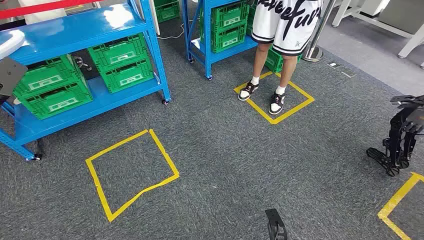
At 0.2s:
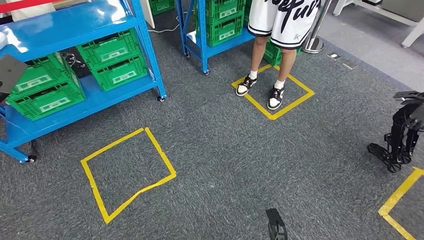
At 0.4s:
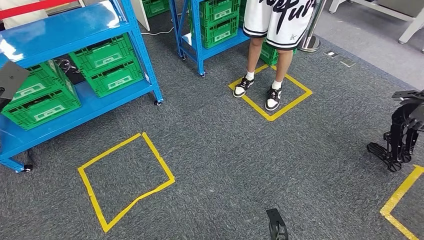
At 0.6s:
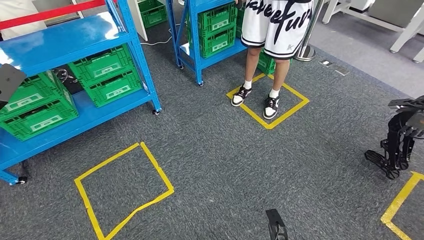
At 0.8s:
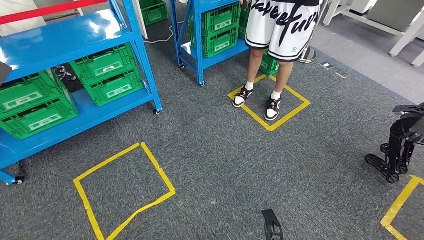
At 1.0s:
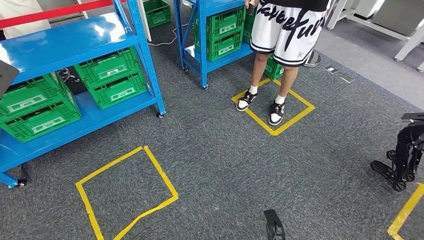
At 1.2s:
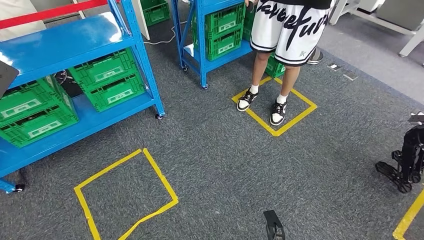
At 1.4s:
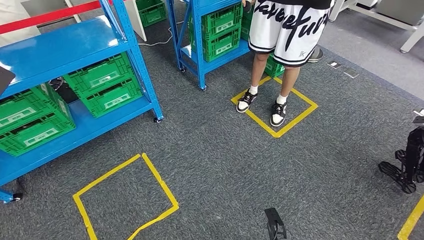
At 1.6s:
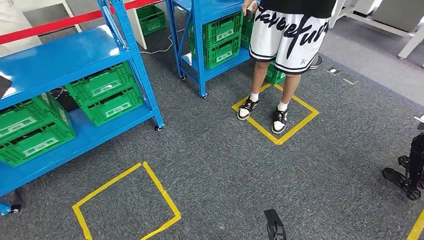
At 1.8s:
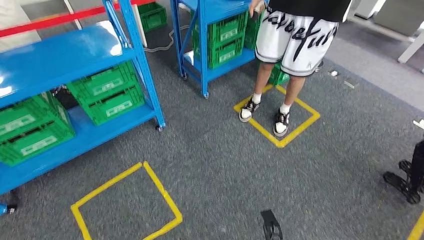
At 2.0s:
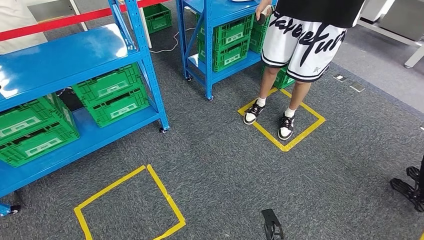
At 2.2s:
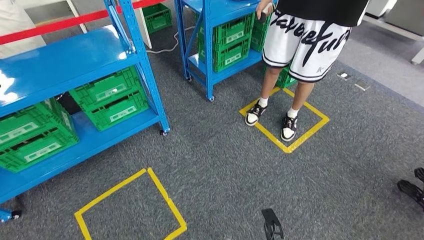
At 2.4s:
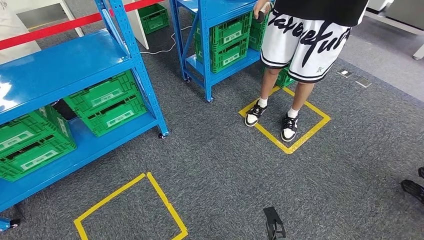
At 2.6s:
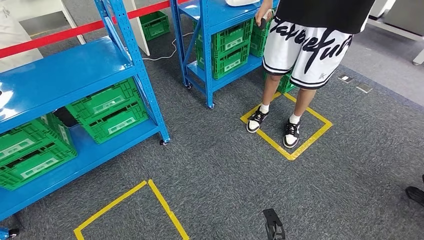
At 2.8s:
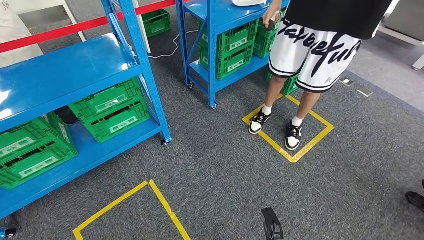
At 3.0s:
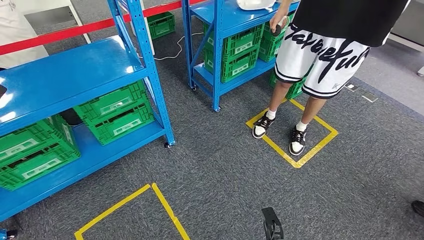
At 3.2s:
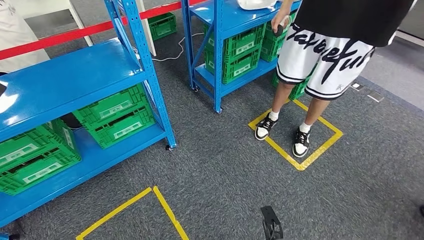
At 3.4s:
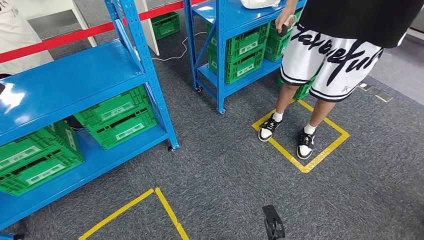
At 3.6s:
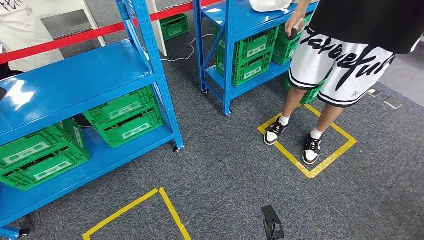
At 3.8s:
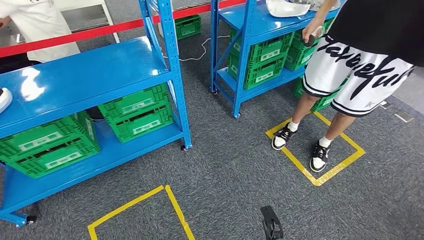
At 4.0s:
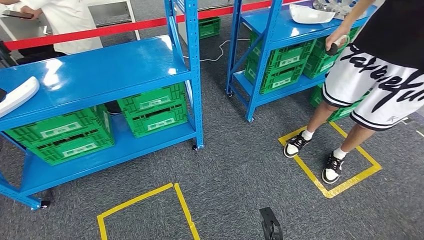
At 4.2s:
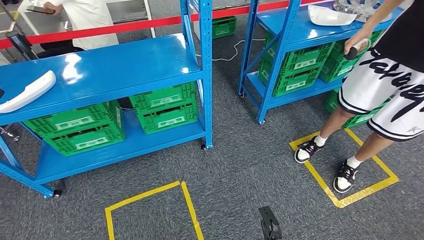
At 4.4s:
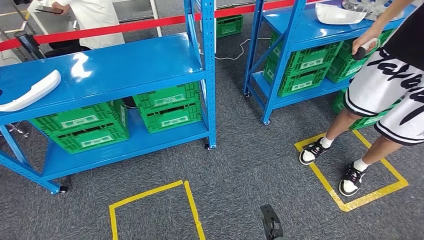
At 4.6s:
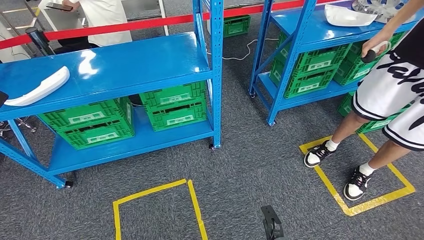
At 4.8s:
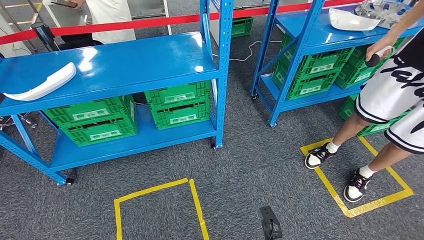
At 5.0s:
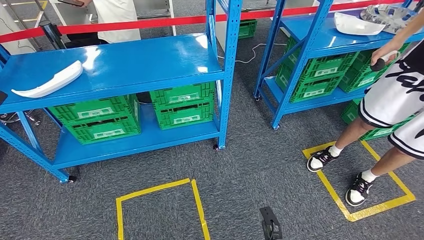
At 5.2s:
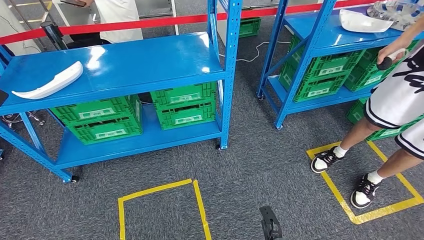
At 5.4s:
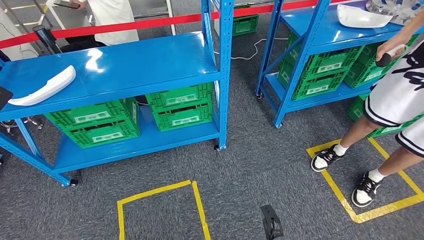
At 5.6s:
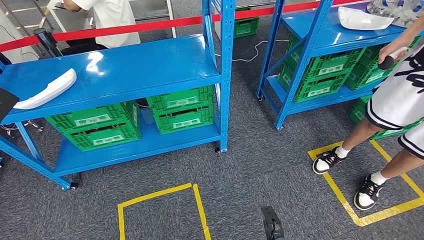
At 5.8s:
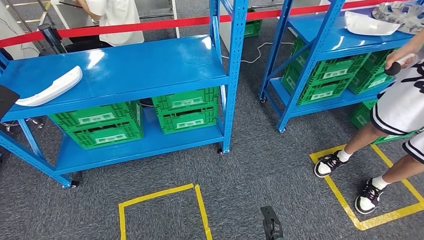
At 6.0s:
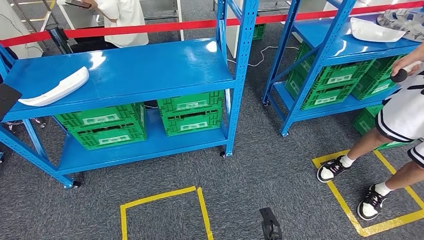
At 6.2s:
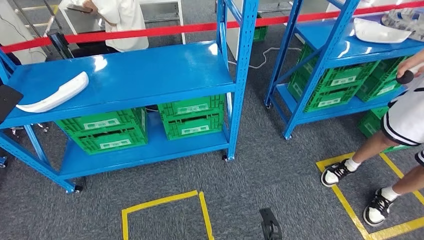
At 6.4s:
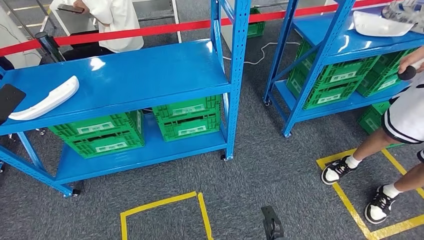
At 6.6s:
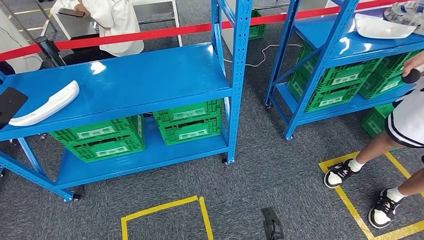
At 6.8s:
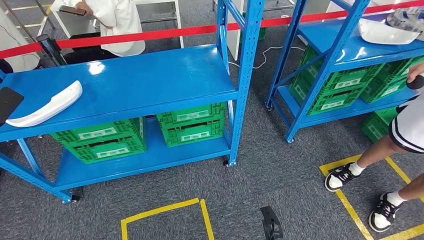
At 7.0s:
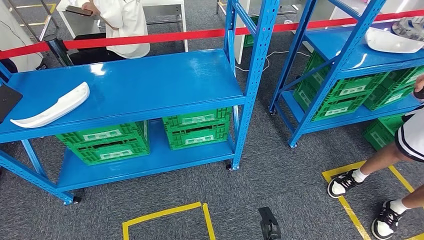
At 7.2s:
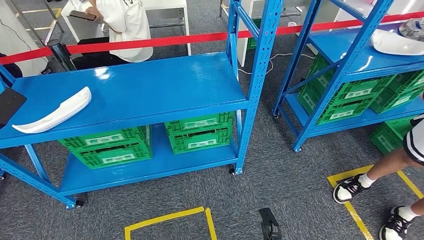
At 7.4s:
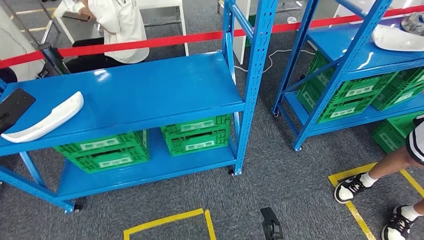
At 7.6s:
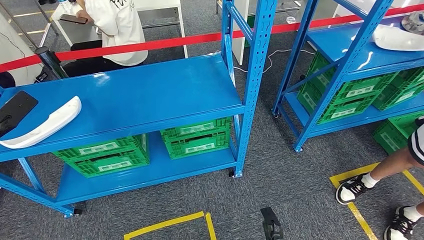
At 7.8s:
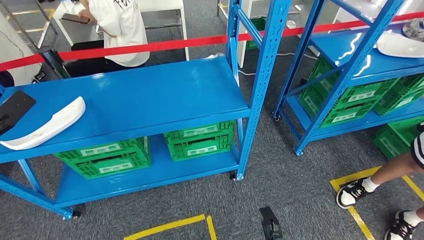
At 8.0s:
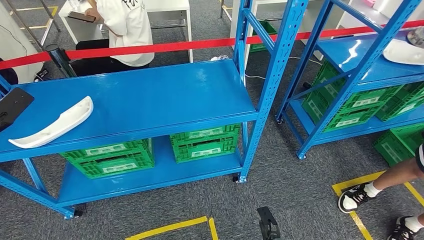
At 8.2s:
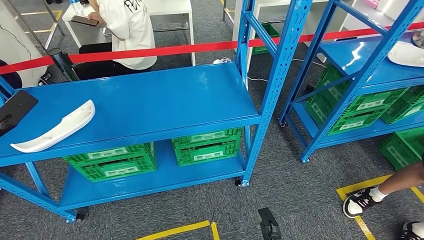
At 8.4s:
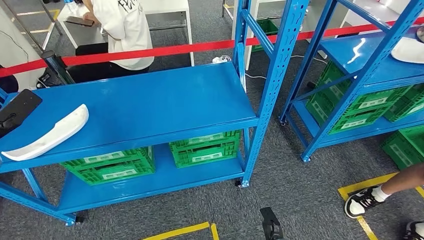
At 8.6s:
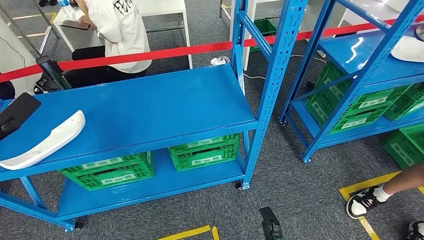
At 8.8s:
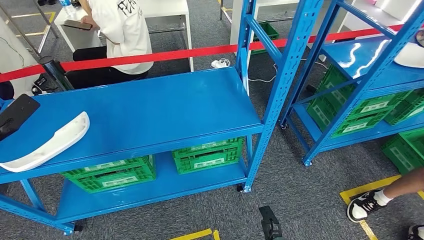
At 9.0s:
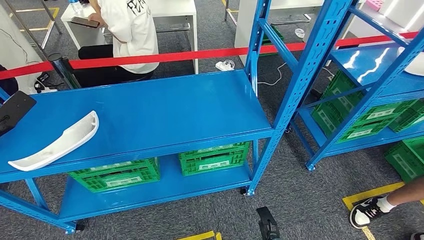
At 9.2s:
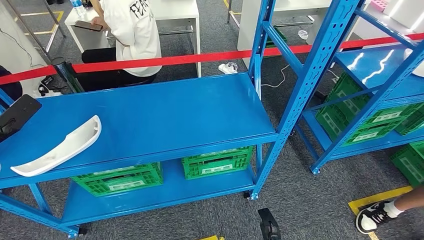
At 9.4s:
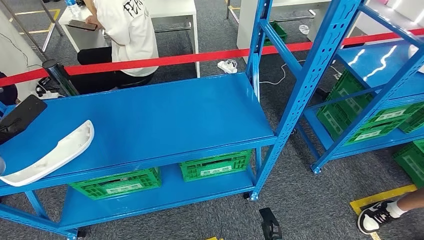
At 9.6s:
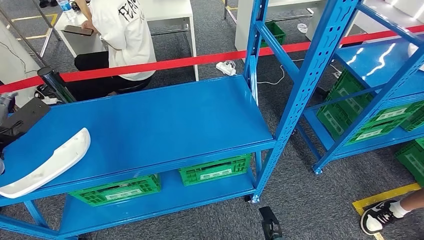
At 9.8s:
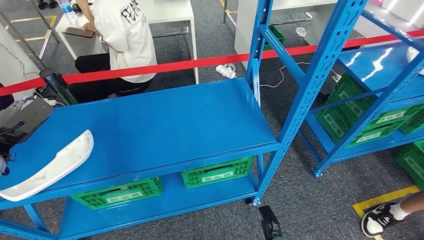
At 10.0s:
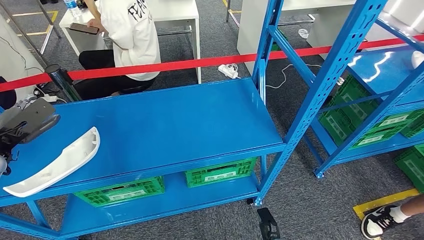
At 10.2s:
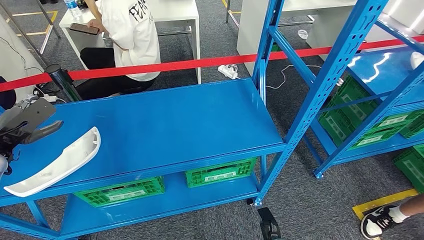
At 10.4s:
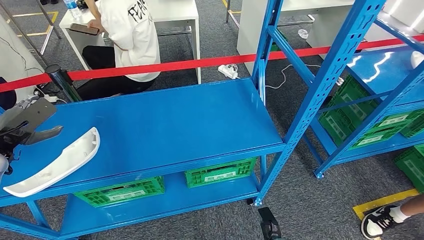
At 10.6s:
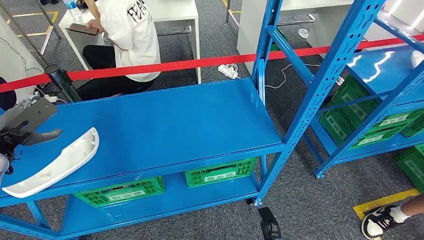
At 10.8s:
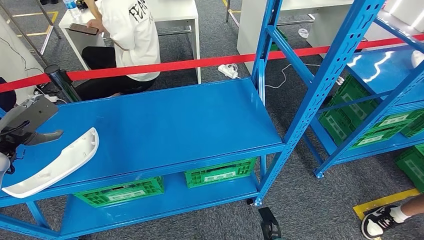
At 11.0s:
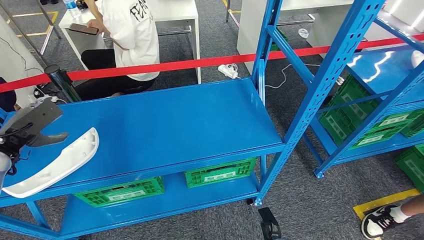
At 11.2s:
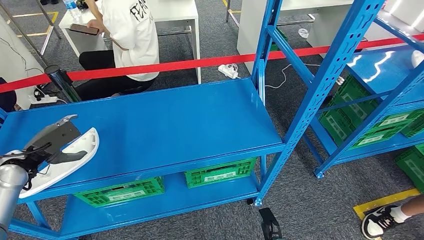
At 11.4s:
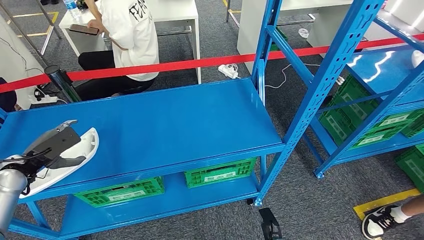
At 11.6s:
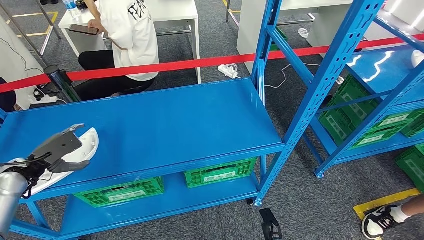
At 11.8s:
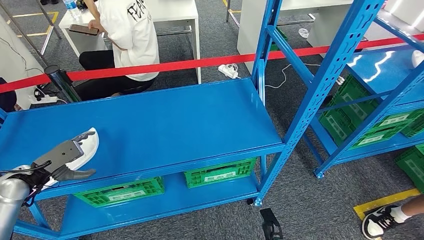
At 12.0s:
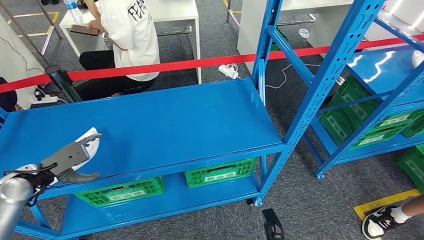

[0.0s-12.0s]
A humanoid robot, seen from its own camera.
10.4s to 12.0s: The left hand goes some 5 cm downward.

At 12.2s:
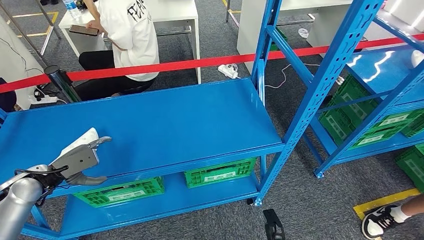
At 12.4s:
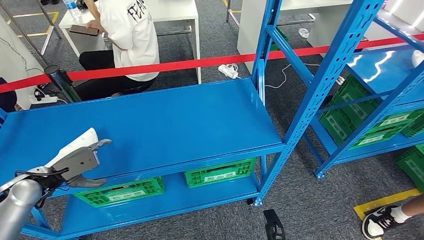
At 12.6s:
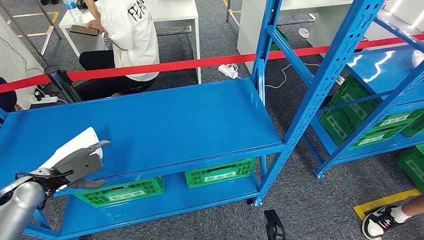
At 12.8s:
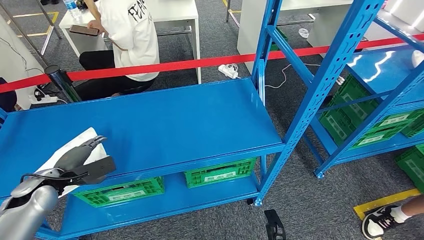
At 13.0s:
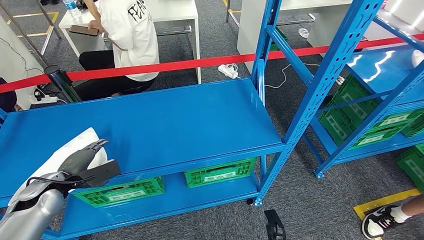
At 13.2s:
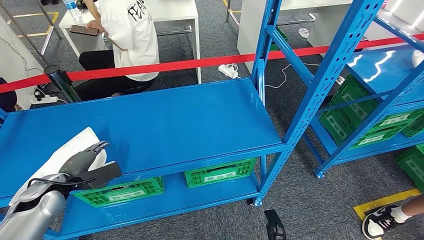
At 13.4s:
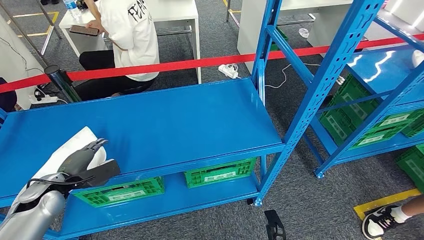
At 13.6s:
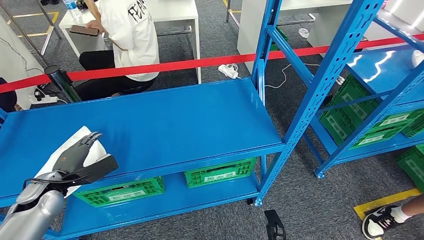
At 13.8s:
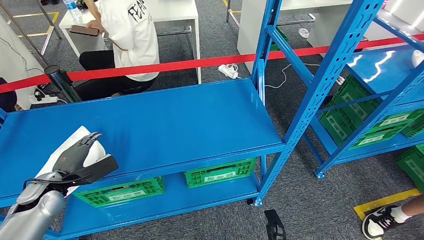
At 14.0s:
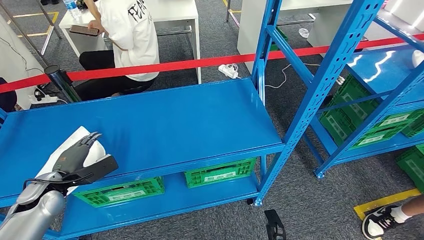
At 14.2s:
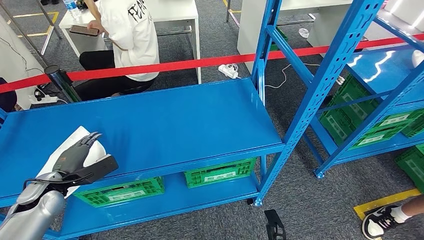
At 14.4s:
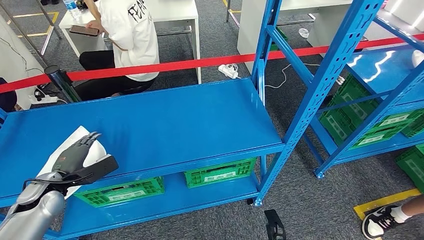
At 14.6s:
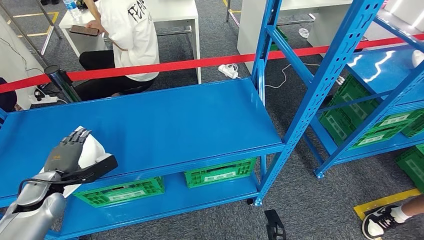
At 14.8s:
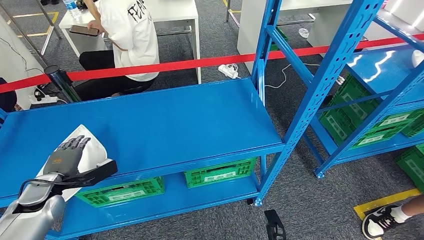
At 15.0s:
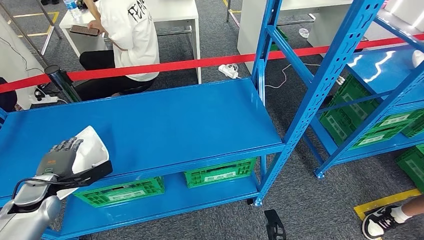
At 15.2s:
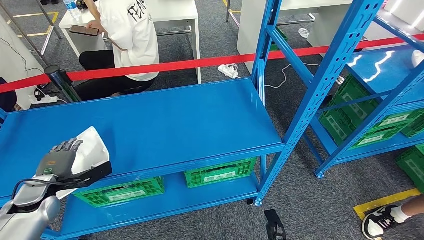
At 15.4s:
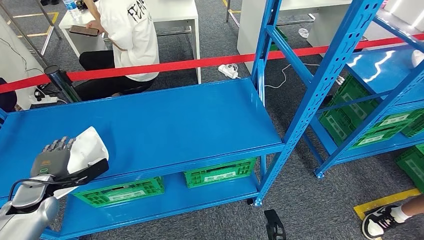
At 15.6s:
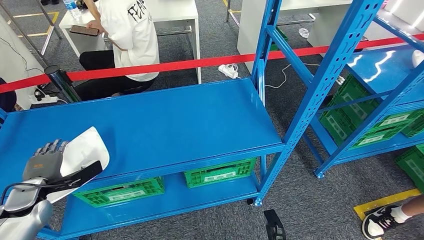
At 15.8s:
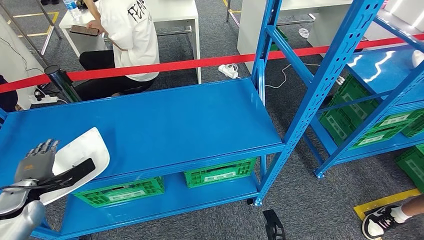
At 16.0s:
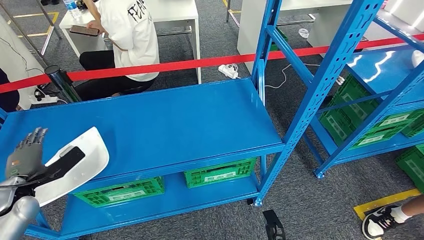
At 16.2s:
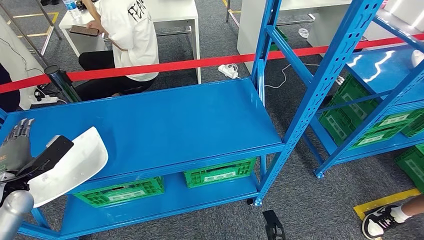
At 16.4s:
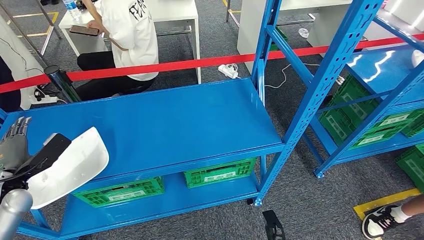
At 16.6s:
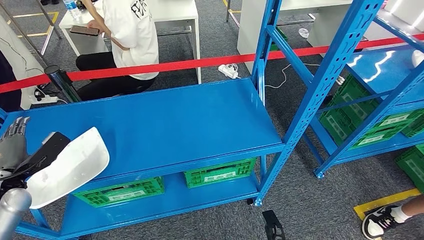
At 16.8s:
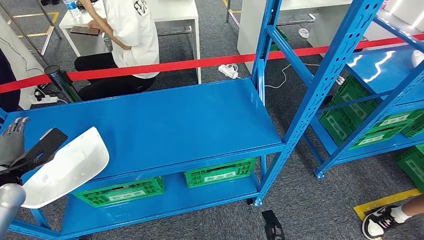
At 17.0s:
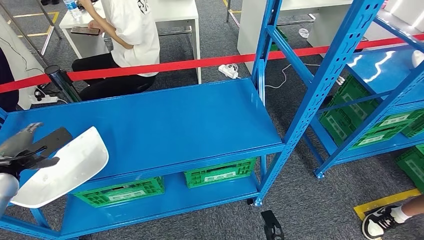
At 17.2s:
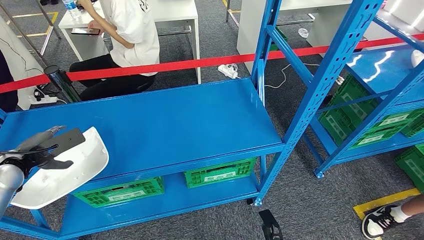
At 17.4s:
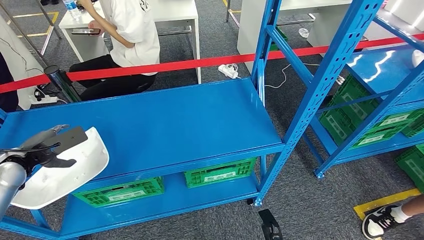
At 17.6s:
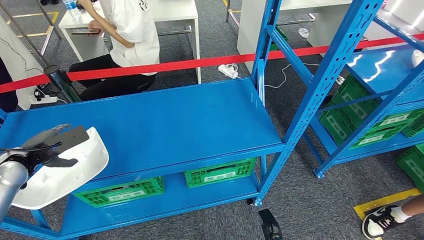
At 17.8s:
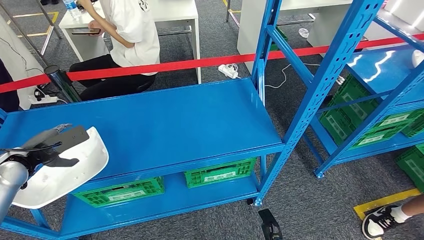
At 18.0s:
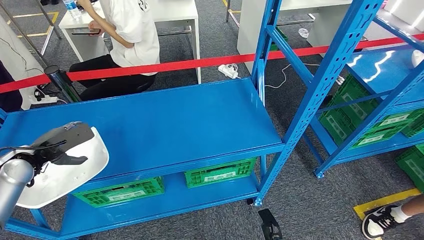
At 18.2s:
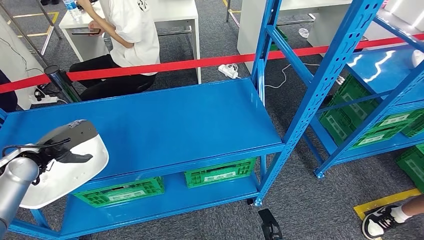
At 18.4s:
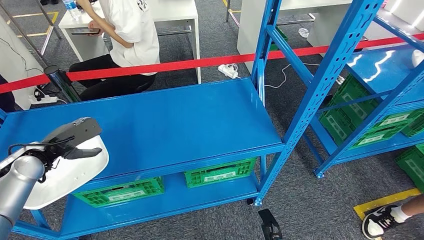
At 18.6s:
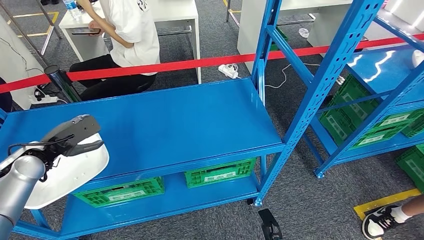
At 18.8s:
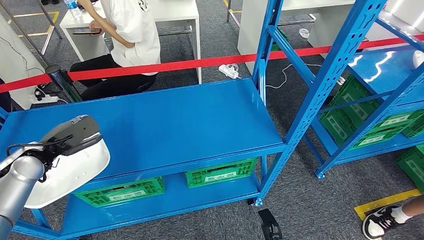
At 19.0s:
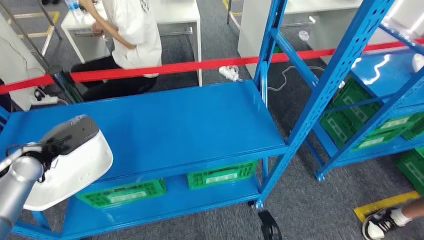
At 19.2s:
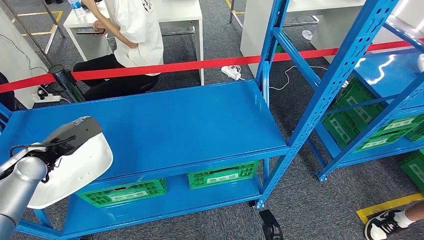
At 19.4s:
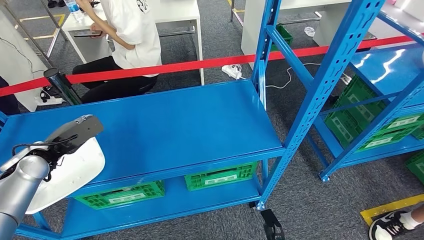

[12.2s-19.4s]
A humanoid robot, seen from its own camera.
15.0s to 16.6s: The left hand goes some 5 cm to the left.
16.6s to 18.0s: The left hand changes place by about 5 cm.
